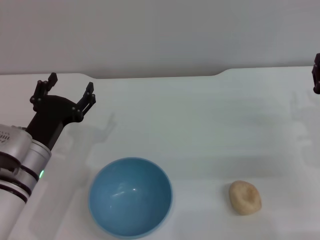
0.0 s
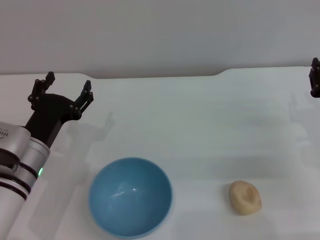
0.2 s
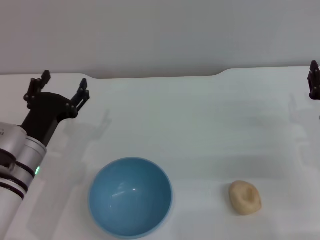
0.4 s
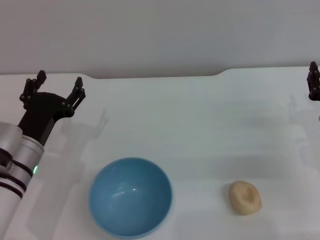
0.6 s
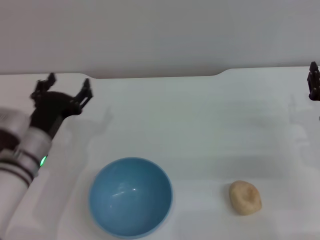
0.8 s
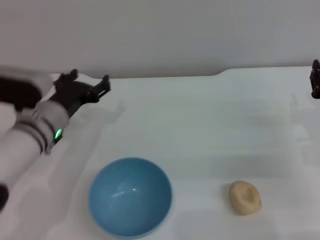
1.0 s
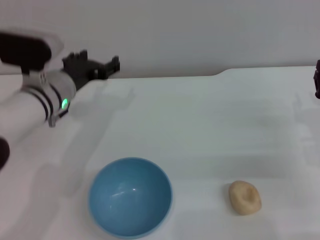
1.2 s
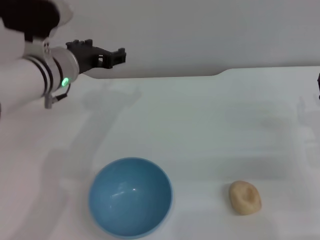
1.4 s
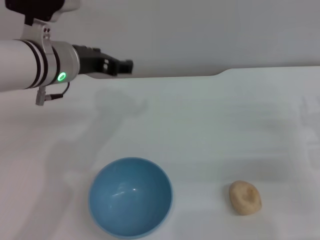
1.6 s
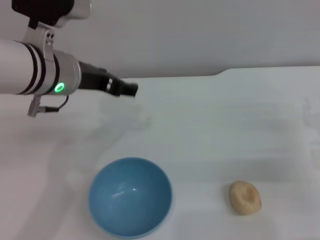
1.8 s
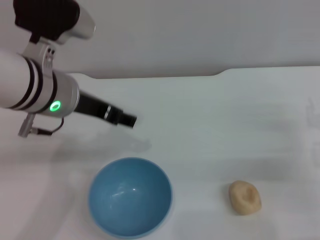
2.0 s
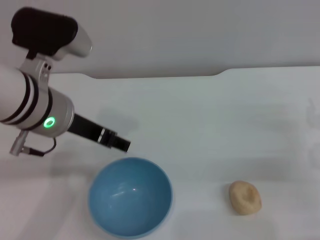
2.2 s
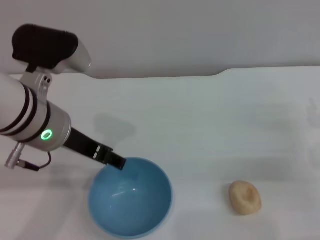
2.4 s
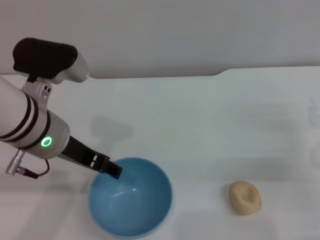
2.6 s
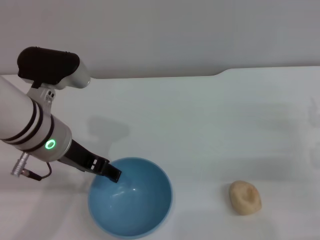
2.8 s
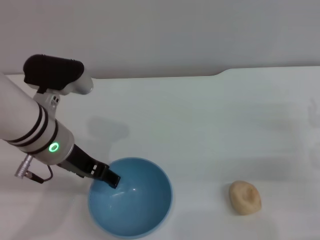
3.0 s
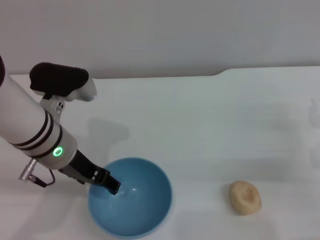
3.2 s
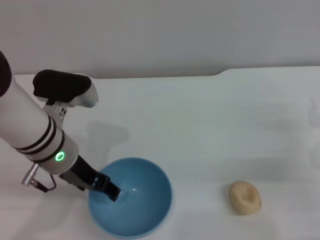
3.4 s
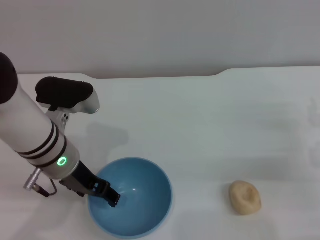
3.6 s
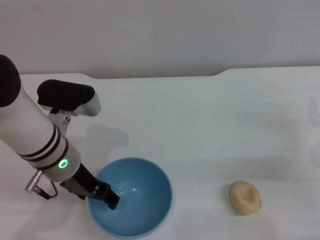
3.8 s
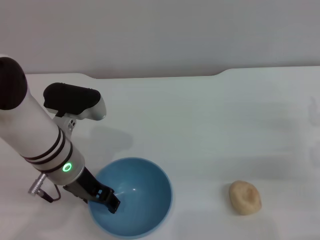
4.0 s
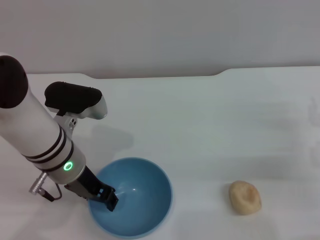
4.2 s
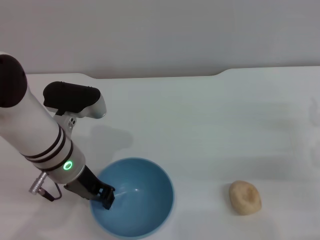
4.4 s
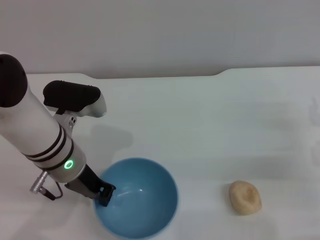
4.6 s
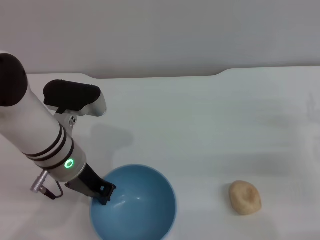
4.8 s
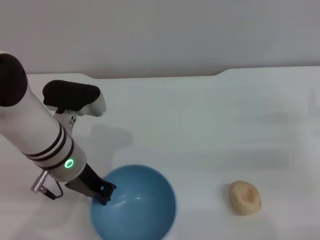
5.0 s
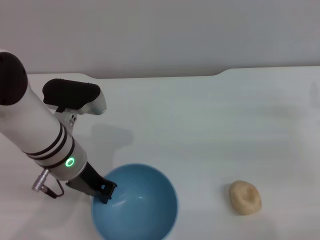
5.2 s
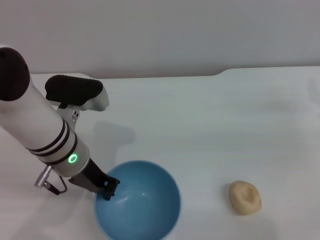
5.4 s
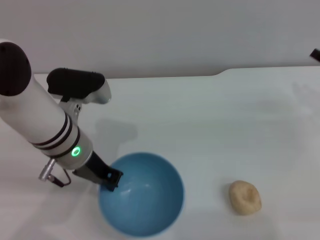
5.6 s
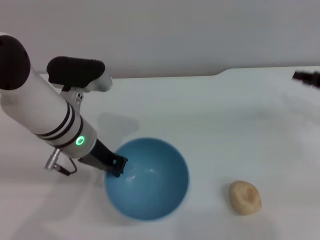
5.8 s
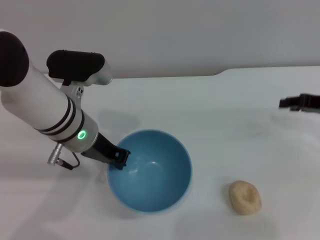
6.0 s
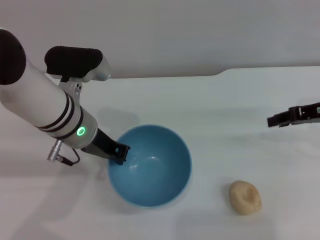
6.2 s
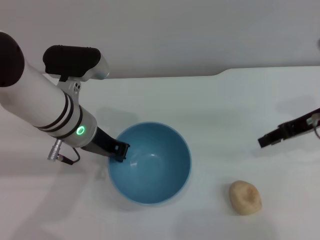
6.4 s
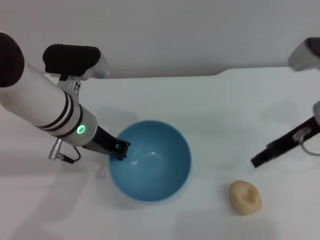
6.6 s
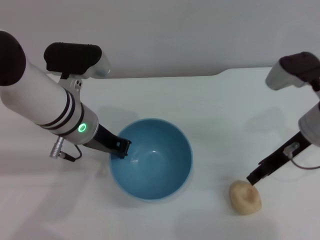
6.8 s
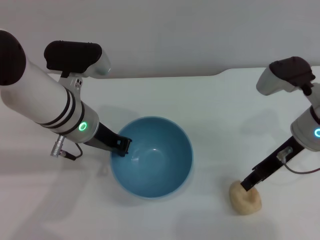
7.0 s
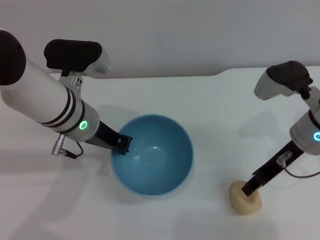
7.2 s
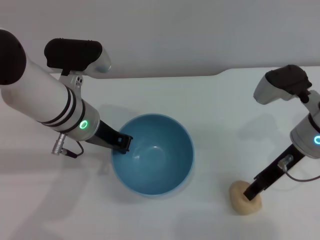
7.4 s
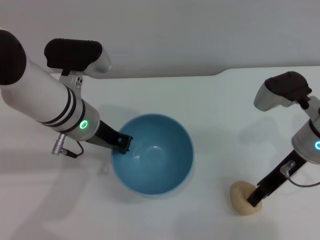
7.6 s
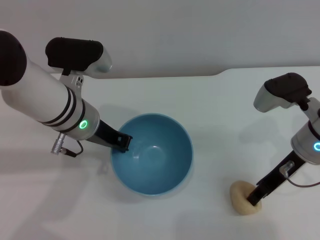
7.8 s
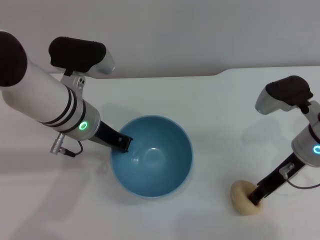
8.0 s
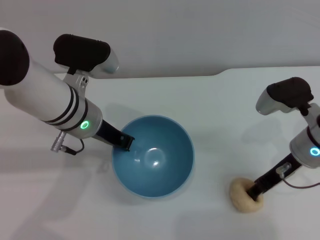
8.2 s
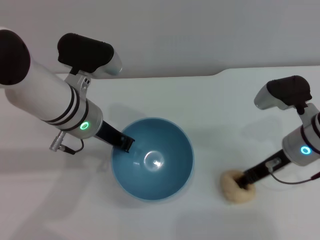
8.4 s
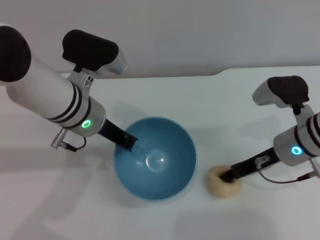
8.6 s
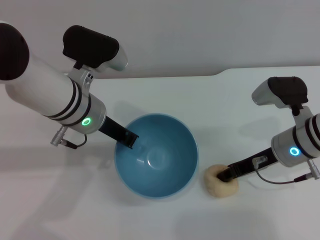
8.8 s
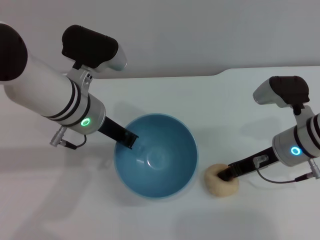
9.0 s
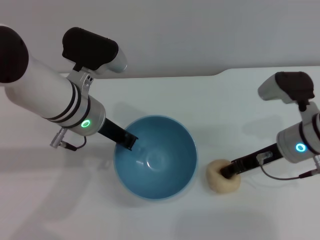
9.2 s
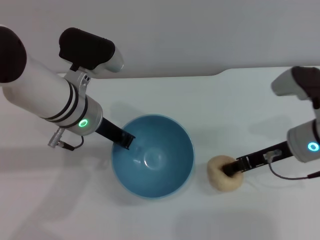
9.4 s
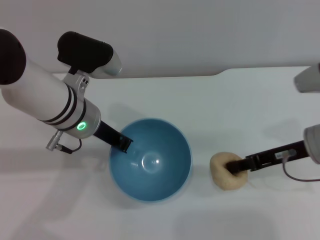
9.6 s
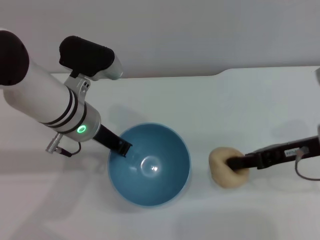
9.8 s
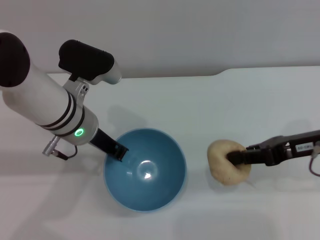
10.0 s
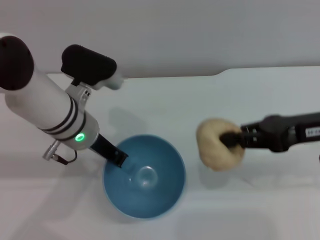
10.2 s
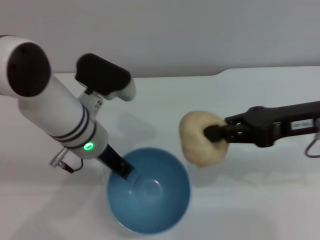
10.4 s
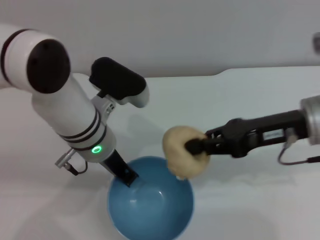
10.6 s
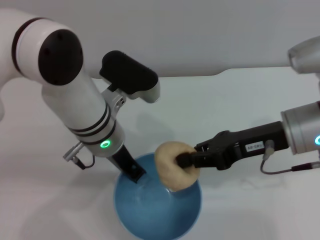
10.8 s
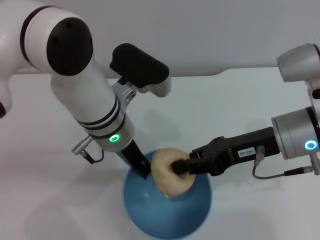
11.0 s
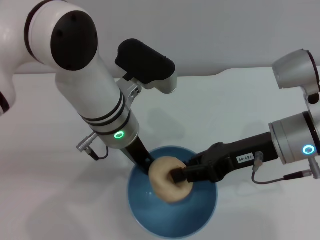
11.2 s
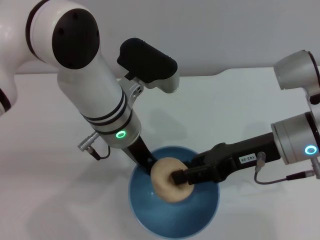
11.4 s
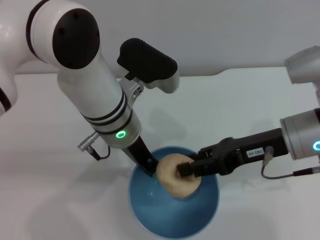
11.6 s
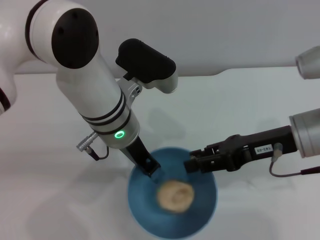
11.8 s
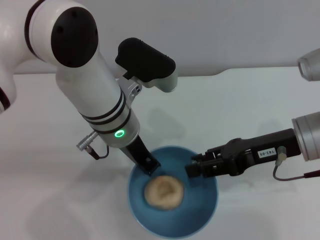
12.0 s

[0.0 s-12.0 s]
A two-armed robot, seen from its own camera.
Task of the whole recording: put the egg yolk pastry into the blue bowl and pour it out repeatedly.
Step, 0.0 to 6.2 s: Pick up the bowl with the left gripper.
Step, 6.4 to 10.0 s: Pick up the egg yolk pastry with the right gripper.
0.0 to 1.6 s: The left gripper travels upward and forward by approximately 20 cm.
1.6 to 3.0 s: The left gripper moves backward, approximately 5 cm.
3.0 to 4.4 s: The left gripper closes its fingers.
4.4 to 6.0 s: The left gripper closes its fingers. The right gripper is displaced forward and upward by some 10 cm.
6.0 to 7.6 s: The right gripper moves to the left, approximately 10 cm.
9.0 to 10.4 s: The right gripper moves upward, about 10 cm.
10.4 to 12.0 s: The right gripper shifts by roughly 5 cm, and opens, while the left gripper is displaced to the right by some 5 cm.

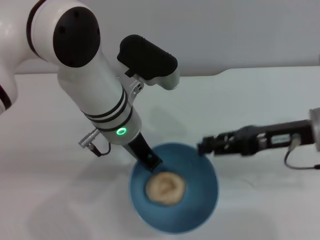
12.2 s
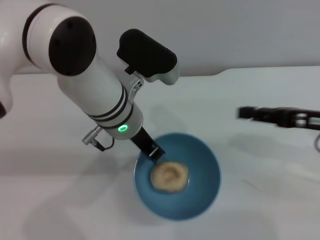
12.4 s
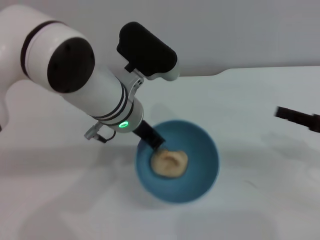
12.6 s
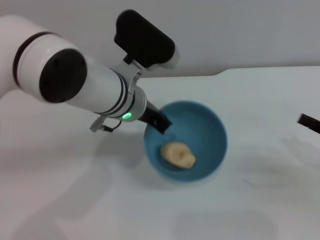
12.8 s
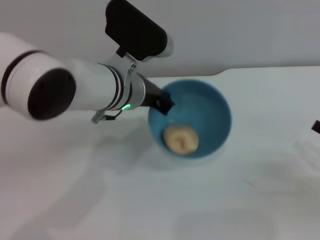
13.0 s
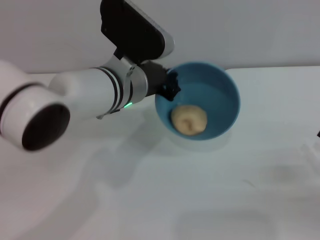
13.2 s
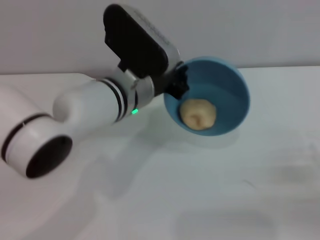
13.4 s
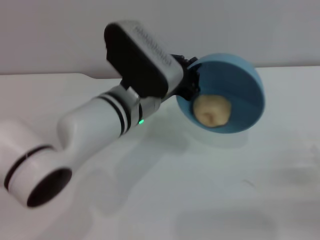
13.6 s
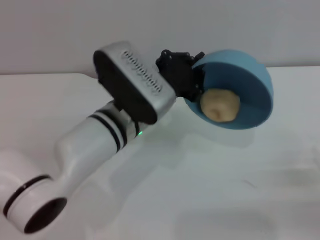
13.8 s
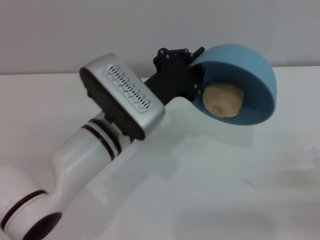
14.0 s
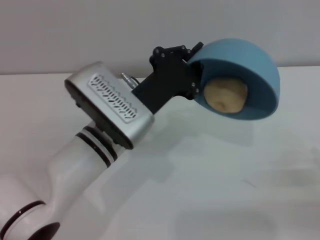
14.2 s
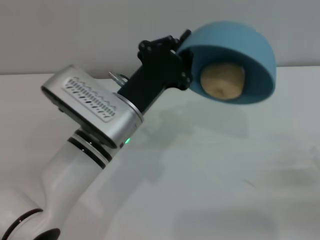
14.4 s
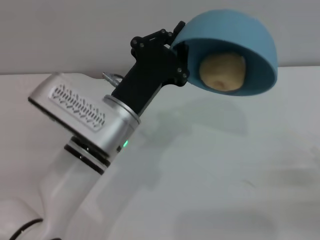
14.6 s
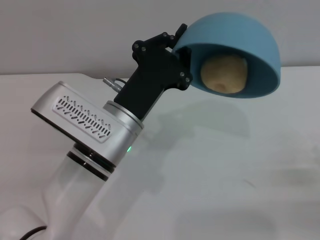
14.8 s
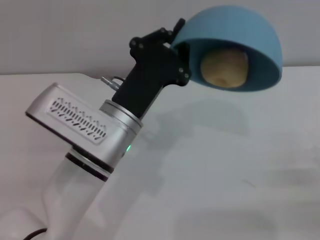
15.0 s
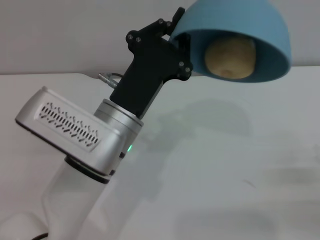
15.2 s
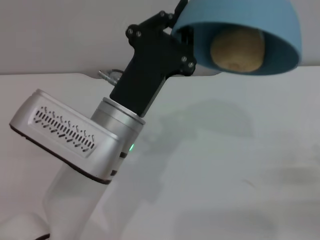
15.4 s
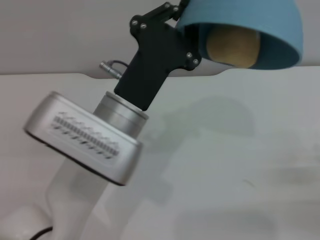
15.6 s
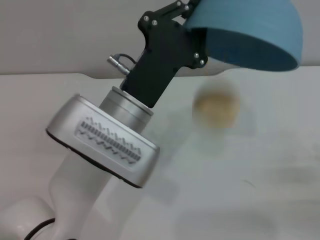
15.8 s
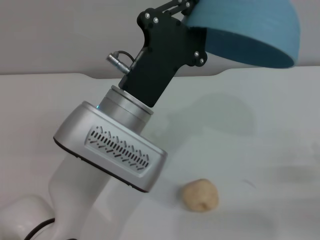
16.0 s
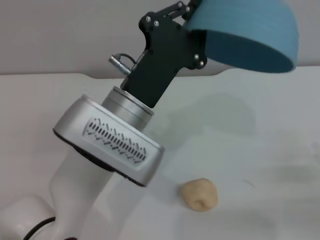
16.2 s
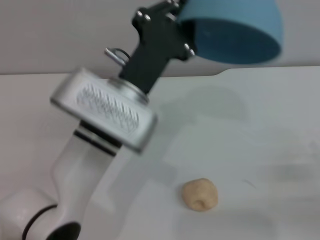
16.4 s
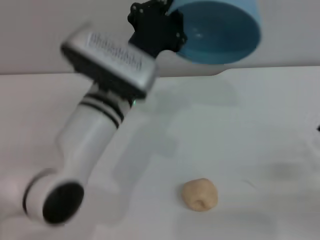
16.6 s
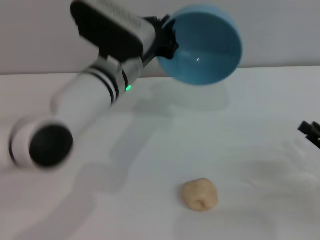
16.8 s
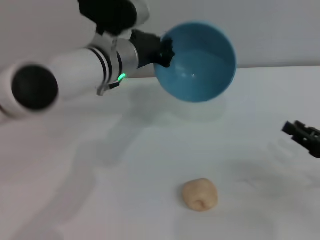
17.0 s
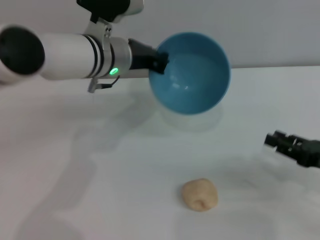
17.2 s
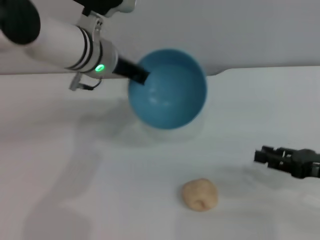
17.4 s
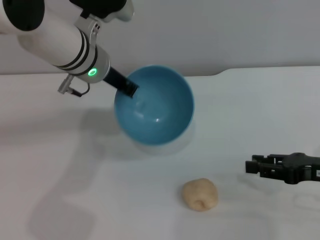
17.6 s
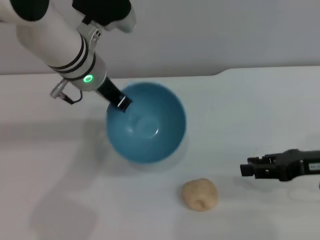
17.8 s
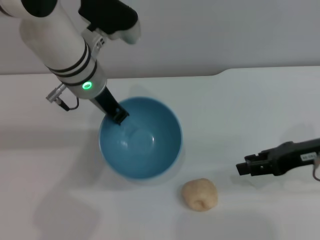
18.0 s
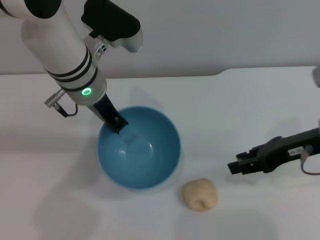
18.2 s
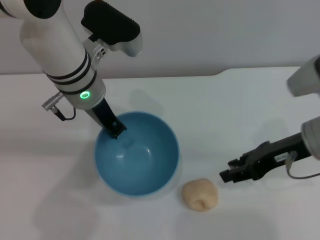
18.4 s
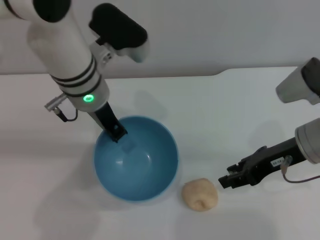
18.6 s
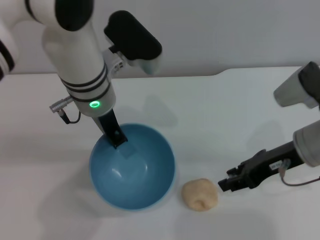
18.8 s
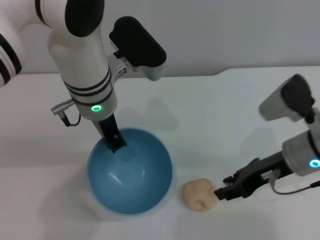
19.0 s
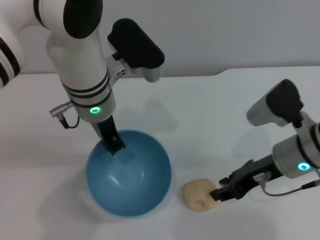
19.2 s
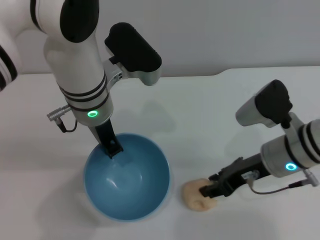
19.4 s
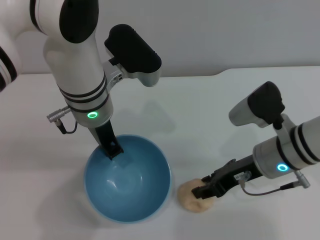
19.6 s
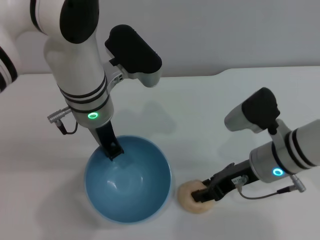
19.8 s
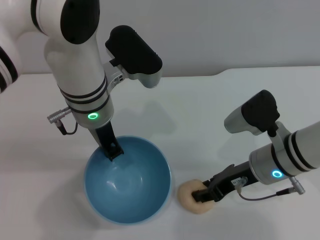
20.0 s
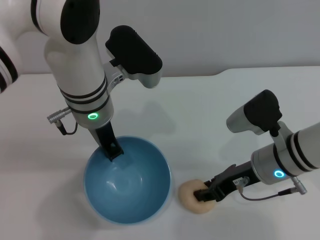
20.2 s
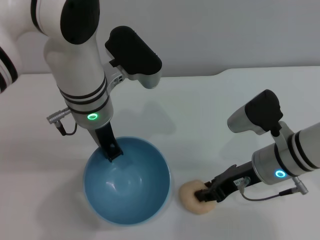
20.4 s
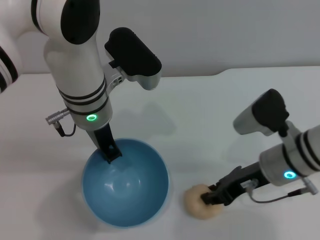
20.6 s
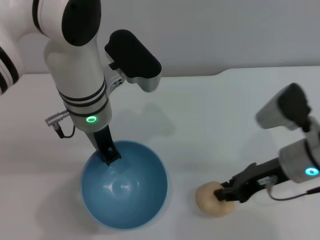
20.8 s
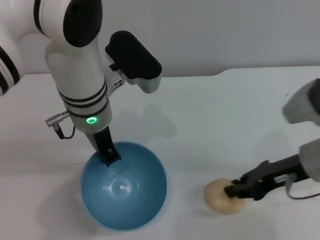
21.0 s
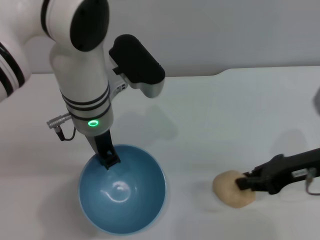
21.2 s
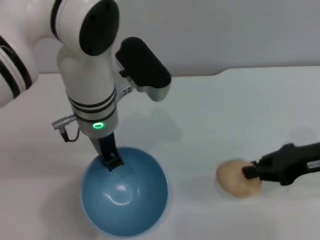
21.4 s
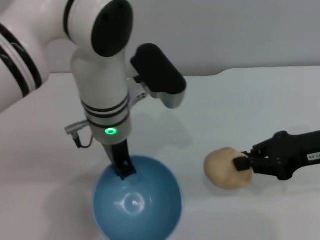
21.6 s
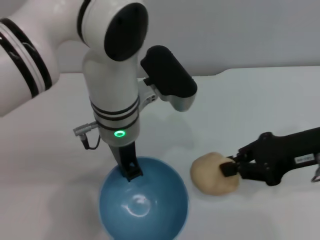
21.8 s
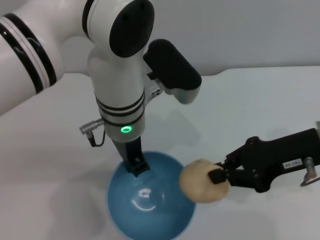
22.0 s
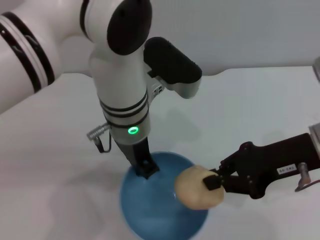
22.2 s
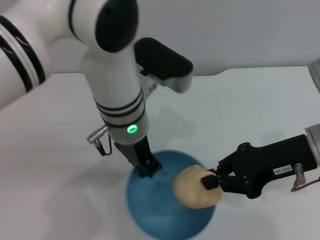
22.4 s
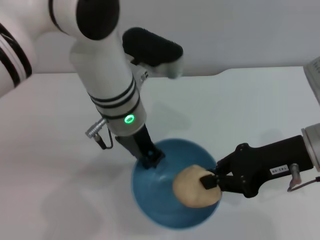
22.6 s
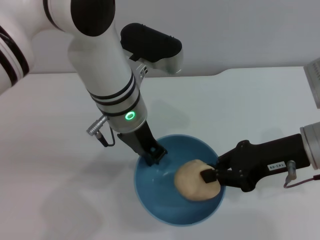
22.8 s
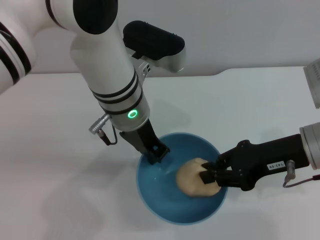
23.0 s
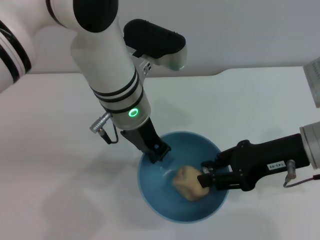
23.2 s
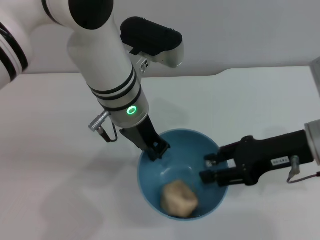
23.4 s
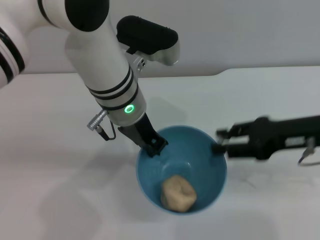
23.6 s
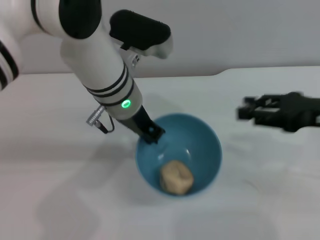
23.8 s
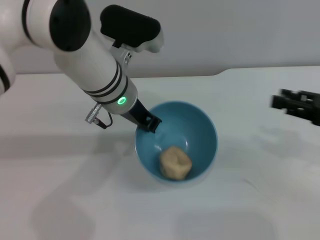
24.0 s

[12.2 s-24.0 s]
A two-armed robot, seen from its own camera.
Task of the whole recording: put the egg yolk pastry into the blue bowl and pour it out repeatedly.
Step, 12.4 to 15.8 s: Pour the egg yolk pastry out of bowl.
Step, 16.2 to 21.6 s: Pick up the egg yolk pastry with the right gripper.
Step, 21.8 to 23.4 s: Place the egg yolk pastry into the bowl.
12.2 to 13.6 s: The right gripper travels to the right, downward and backward by approximately 20 cm.
13.6 to 15.2 s: The left gripper heads backward, covering some 5 cm.
15.2 to 16.6 s: The left gripper moves forward, about 5 cm.
16.6 to 18.2 s: The right gripper shifts some 20 cm upward, to the left and forward. Meanwhile the left gripper moves forward, some 5 cm.
18.2 to 19.6 s: The right gripper shifts about 10 cm to the left and downward.
19.6 to 21.0 s: The right gripper shifts some 5 cm to the right, and closes.
21.0 to 22.6 s: The right gripper heads upward, covering about 5 cm.
22.6 to 24.0 s: The right gripper is displaced to the right by approximately 10 cm, and opens its fingers.
